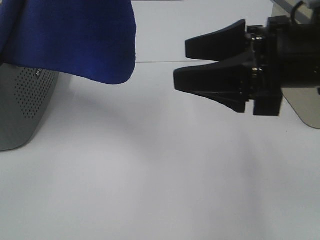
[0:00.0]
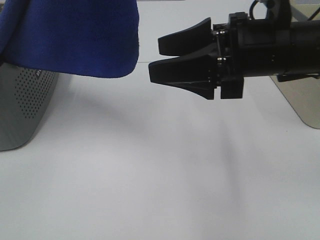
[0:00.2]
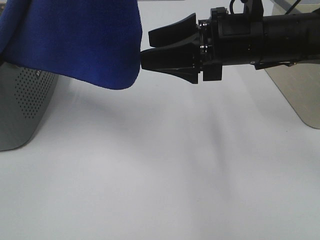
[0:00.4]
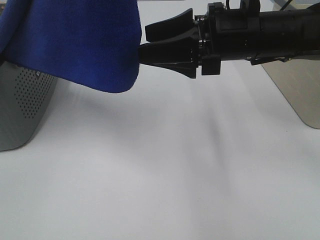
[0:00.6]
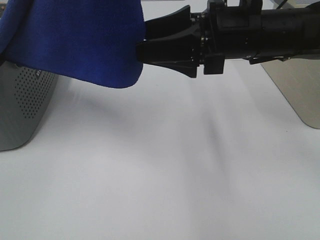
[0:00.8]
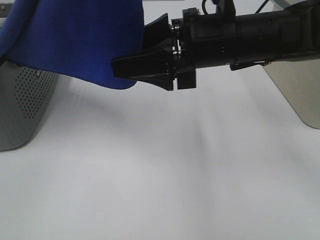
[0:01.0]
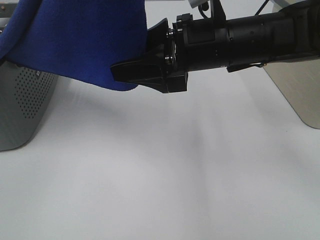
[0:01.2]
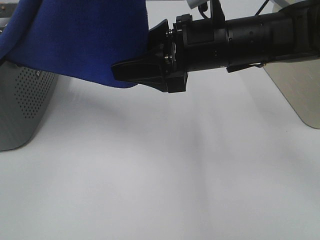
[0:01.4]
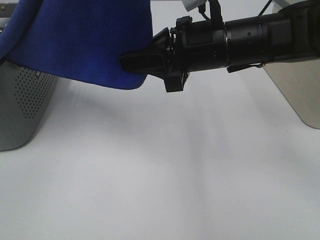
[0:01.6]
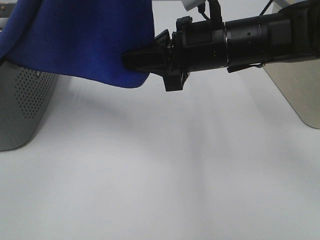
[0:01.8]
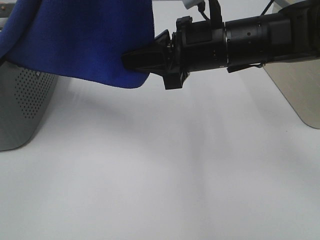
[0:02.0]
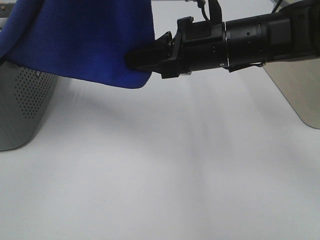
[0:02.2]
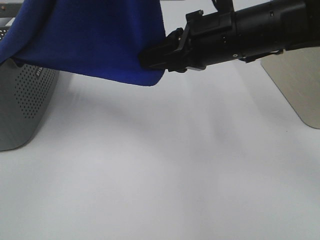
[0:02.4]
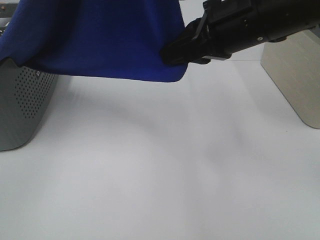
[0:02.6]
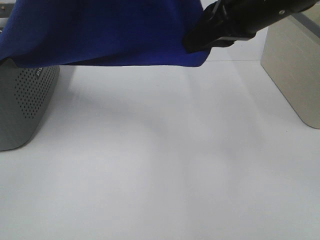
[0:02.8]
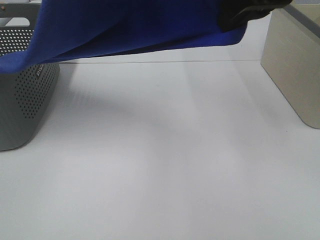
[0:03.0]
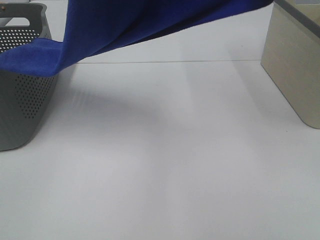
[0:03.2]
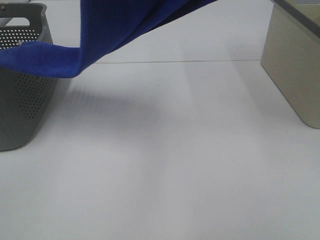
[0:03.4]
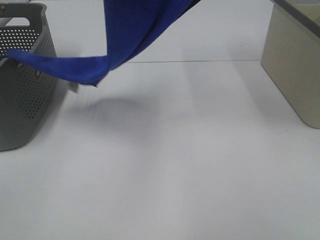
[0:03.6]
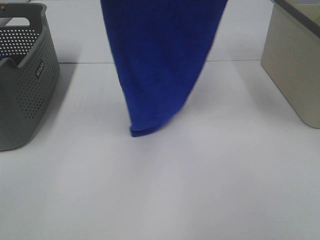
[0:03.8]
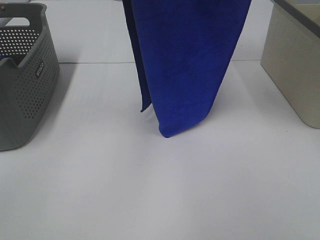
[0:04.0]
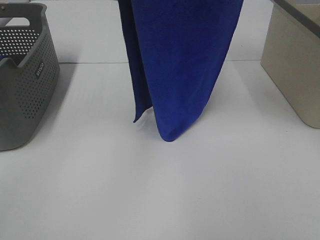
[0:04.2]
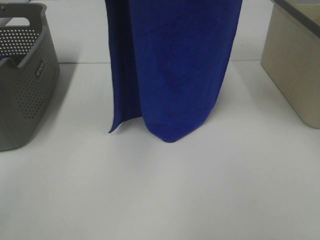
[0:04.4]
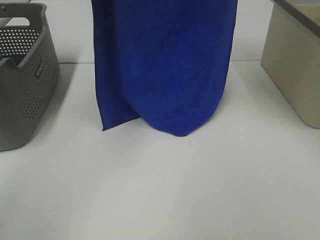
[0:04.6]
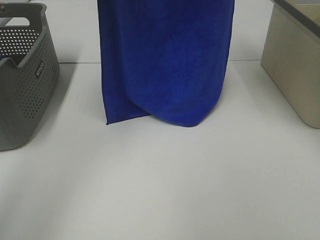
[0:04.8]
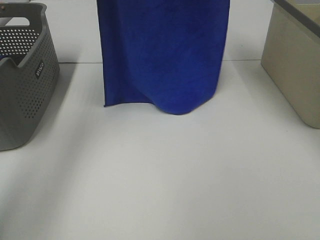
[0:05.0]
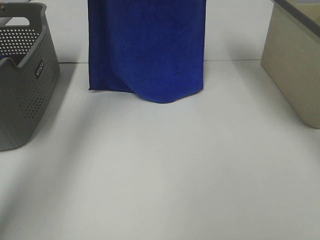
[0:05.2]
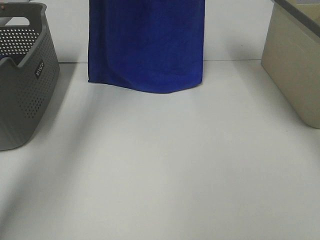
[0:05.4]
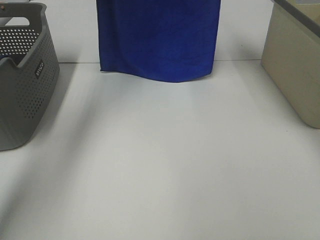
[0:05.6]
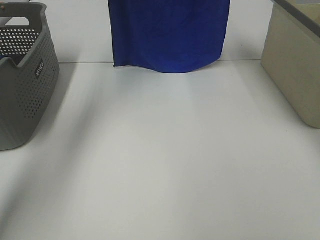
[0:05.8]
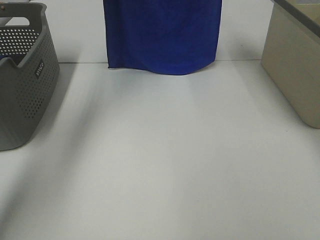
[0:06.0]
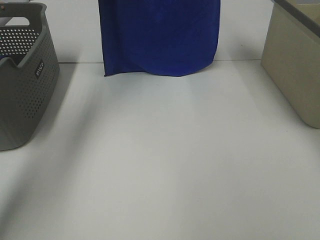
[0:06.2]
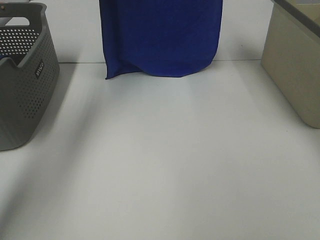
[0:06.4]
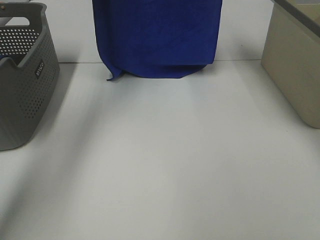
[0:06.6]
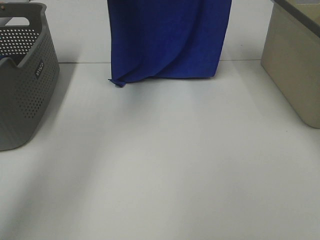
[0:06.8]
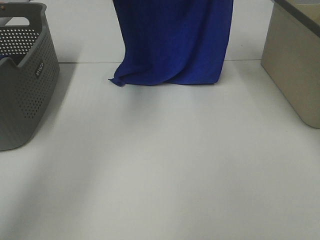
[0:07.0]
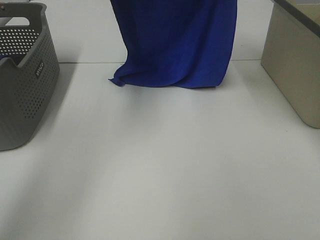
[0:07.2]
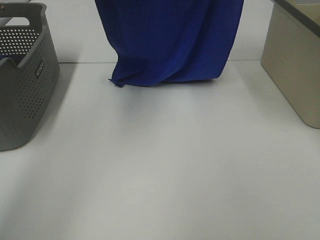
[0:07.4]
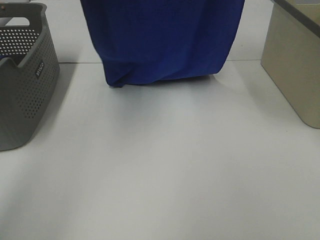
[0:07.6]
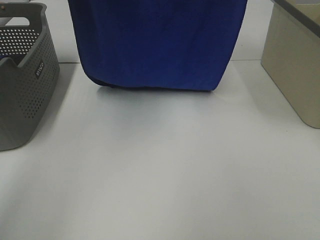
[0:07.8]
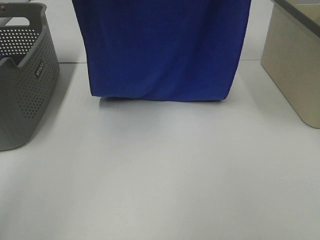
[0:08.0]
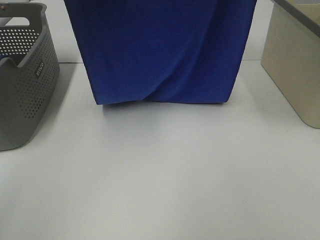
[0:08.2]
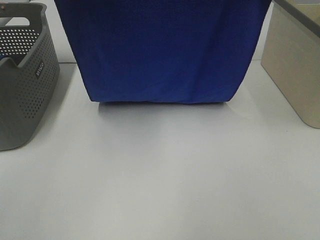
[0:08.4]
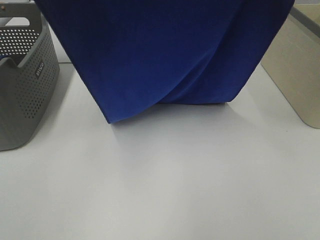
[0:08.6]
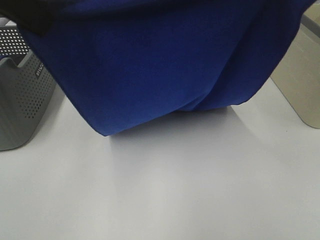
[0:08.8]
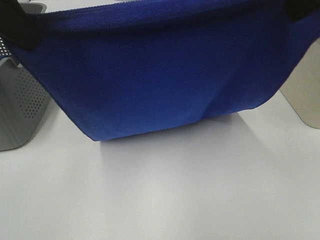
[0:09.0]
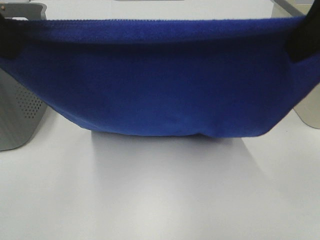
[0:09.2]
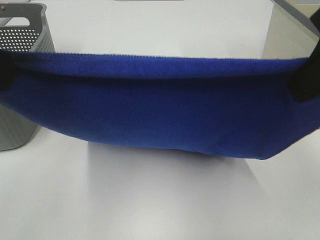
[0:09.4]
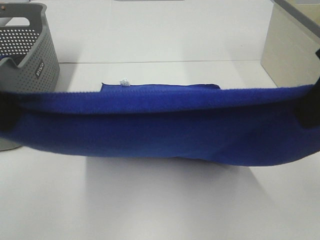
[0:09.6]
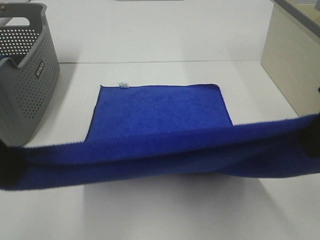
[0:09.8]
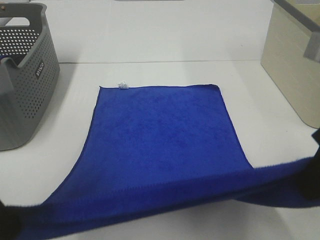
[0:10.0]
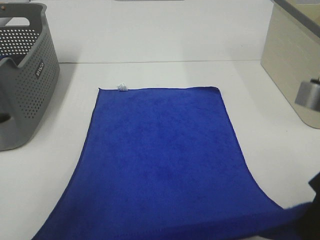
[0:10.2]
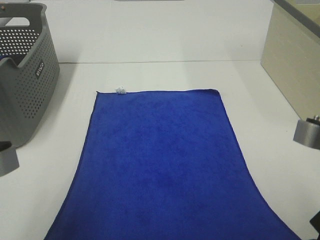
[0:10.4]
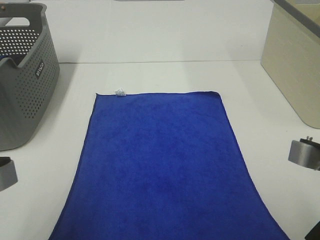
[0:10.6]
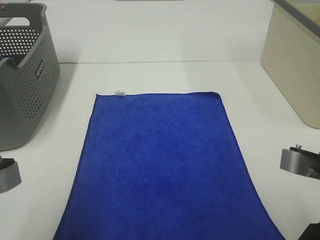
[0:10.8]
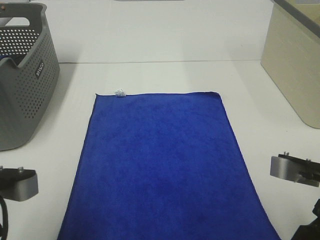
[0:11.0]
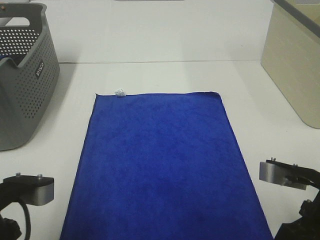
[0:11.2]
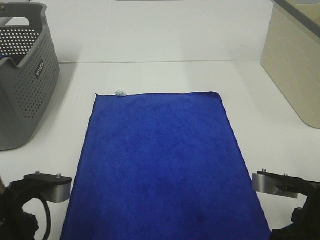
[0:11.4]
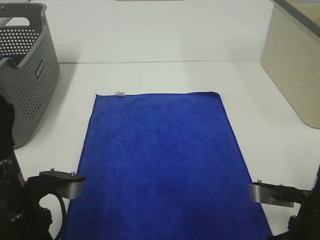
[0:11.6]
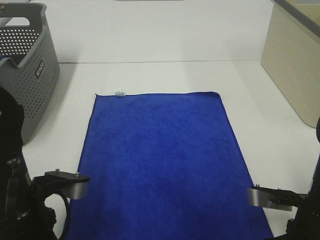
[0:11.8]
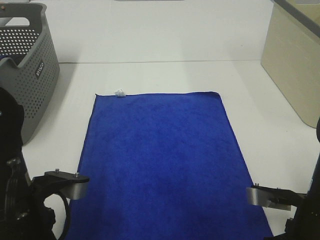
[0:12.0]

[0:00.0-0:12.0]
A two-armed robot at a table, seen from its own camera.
Task of the whole recording: Remove the towel and place it.
Step, 0:00.0 to 0:02.4: Right hand: grab a corner of the blue towel and straighten it.
Step, 0:02.6 to 0:08.4: Left hand: spread the blue towel flat on the table.
Step, 0:02.6 to 0:08.4: Right hand: spread the blue towel flat on the table.
0:00.0 to 0:01.6: The right gripper travels forward and to the left by about 10 cm, and closes up.
0:01.6 to 0:03.0: The right gripper travels upward and to the right by approximately 15 cm.
0:03.0 to 0:04.4: The left gripper goes about 10 cm forward. The right gripper heads upward, covering some 10 cm.
0:04.4 to 0:06.0: The grippers both shift forward by about 15 cm.
0:06.0 to 0:07.6: The grippers both shift backward by roughly 10 cm.
0:07.6 to 0:09.0: The grippers both shift backward and downward by roughly 15 cm.
0:09.0 to 0:10.4: The two grippers go about 20 cm downward and backward.
0:10.4 to 0:12.0: The left gripper moves downward and forward, about 10 cm. Meanwhile the right gripper heads downward, covering about 10 cm.

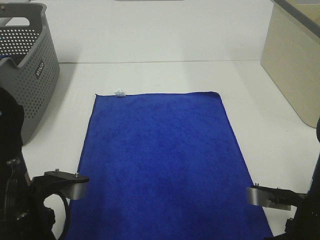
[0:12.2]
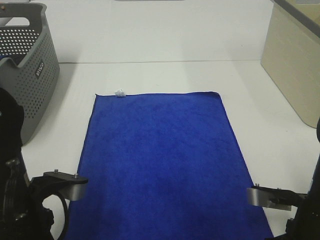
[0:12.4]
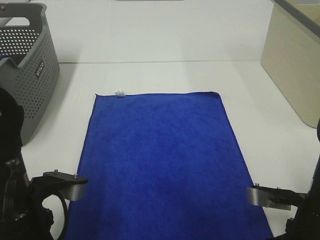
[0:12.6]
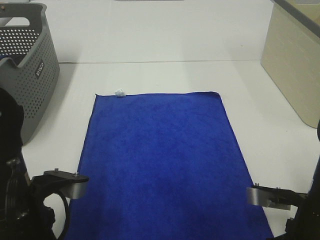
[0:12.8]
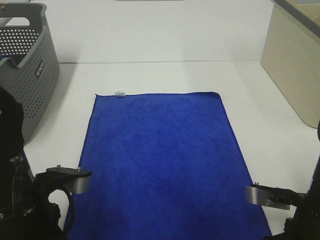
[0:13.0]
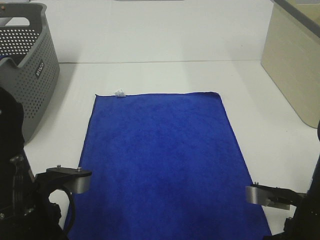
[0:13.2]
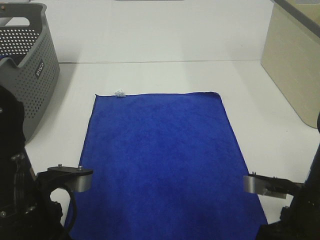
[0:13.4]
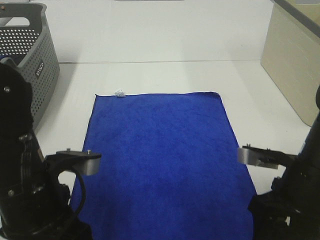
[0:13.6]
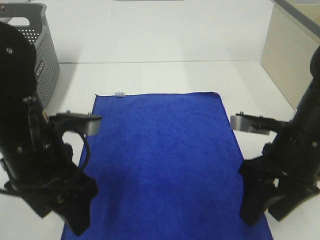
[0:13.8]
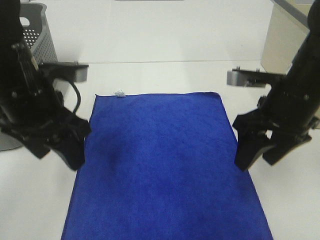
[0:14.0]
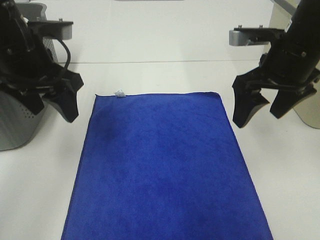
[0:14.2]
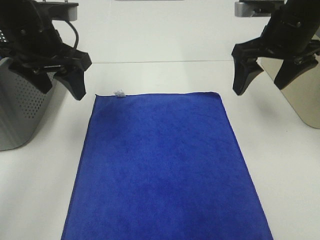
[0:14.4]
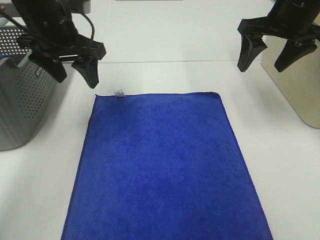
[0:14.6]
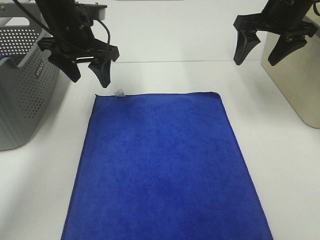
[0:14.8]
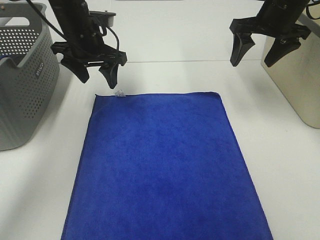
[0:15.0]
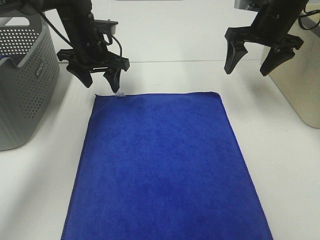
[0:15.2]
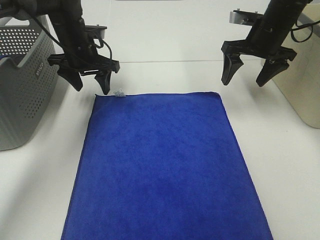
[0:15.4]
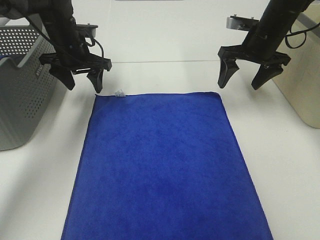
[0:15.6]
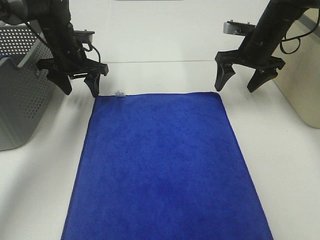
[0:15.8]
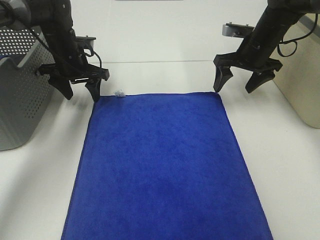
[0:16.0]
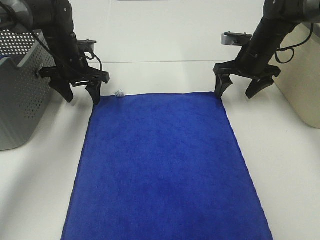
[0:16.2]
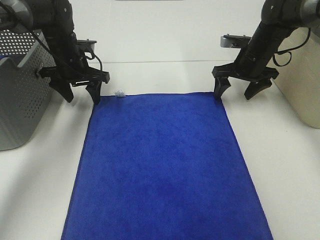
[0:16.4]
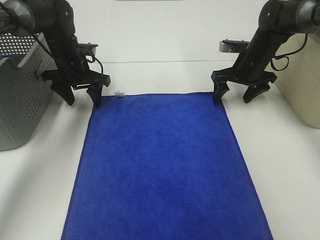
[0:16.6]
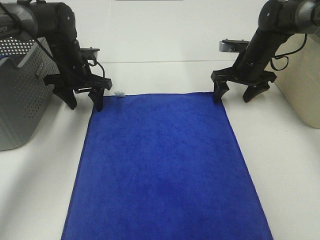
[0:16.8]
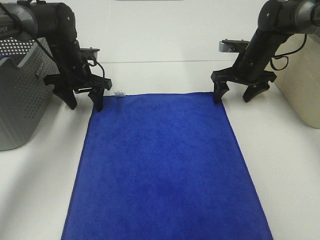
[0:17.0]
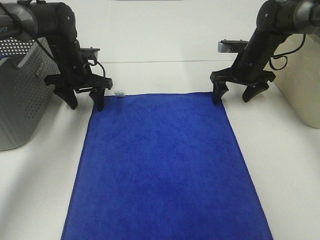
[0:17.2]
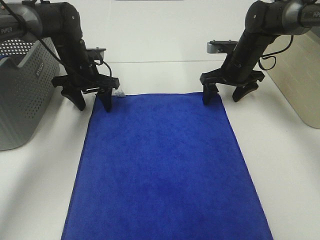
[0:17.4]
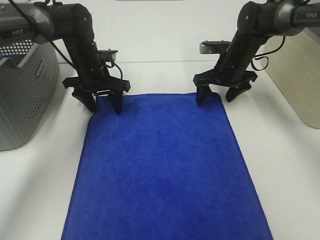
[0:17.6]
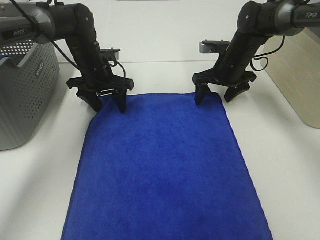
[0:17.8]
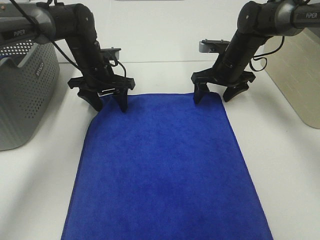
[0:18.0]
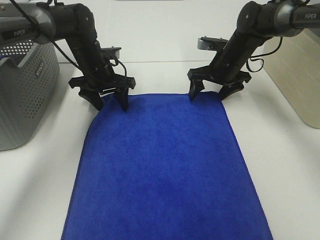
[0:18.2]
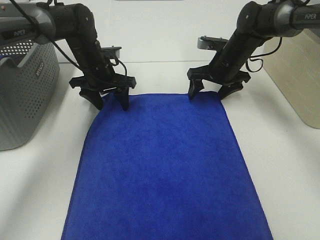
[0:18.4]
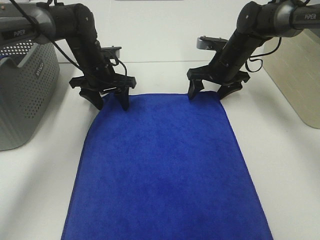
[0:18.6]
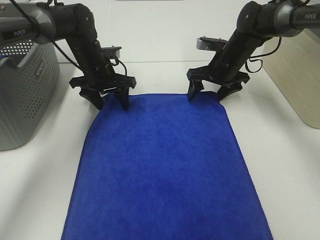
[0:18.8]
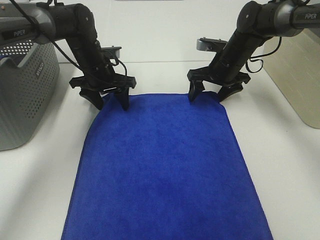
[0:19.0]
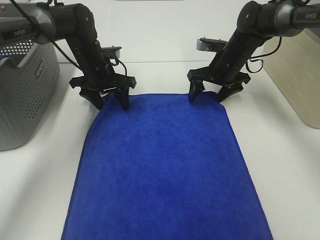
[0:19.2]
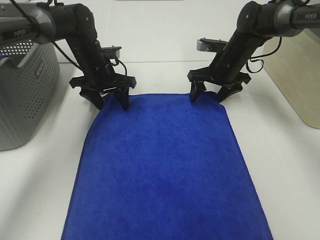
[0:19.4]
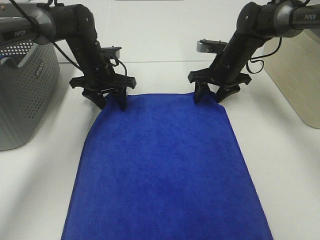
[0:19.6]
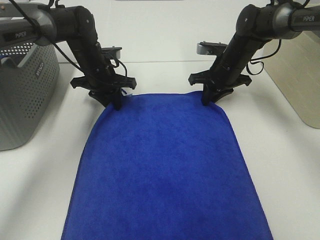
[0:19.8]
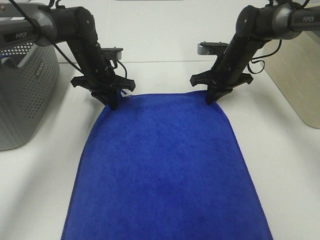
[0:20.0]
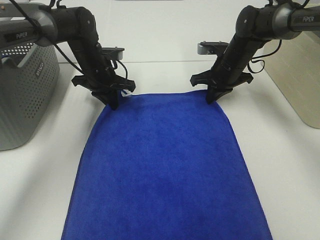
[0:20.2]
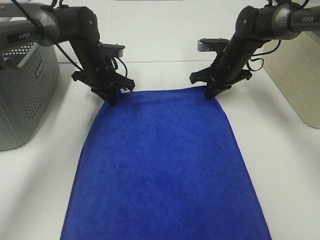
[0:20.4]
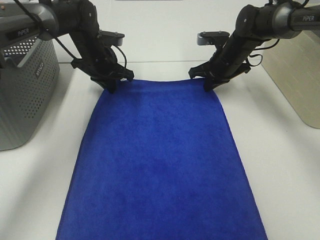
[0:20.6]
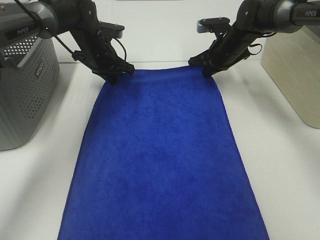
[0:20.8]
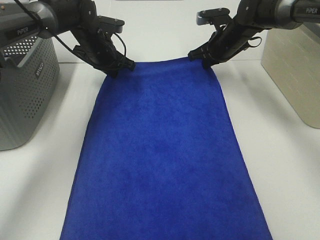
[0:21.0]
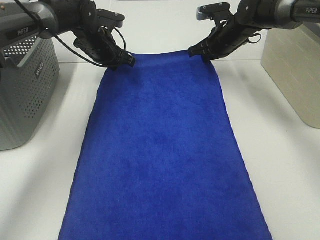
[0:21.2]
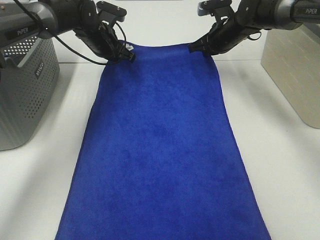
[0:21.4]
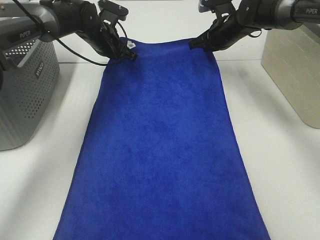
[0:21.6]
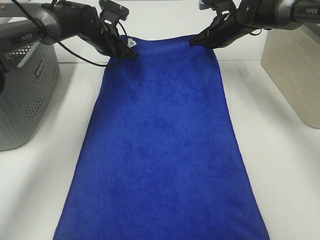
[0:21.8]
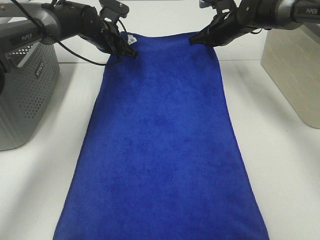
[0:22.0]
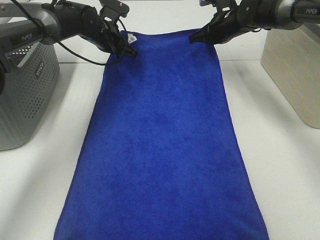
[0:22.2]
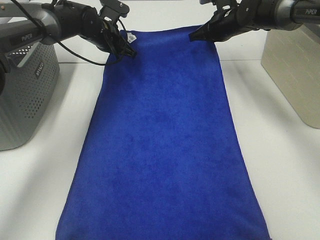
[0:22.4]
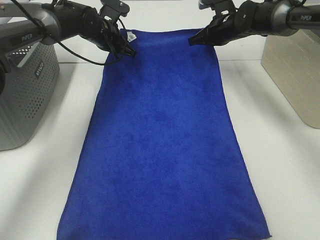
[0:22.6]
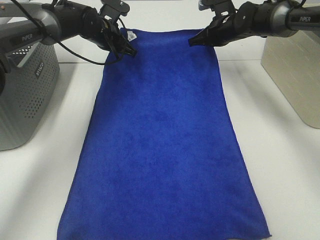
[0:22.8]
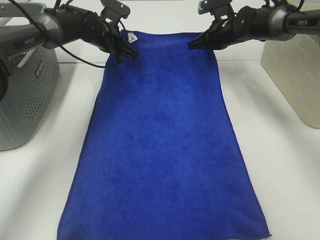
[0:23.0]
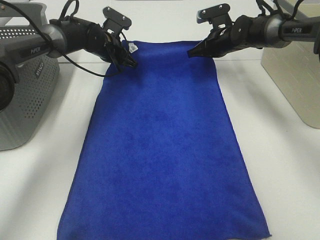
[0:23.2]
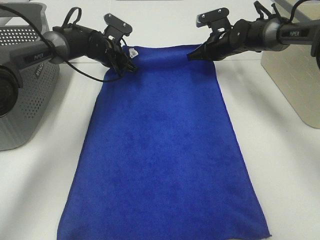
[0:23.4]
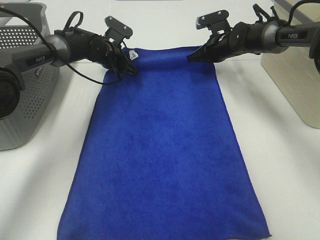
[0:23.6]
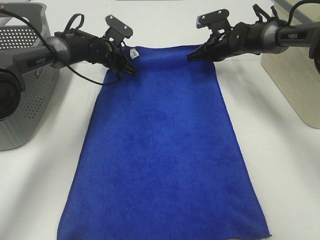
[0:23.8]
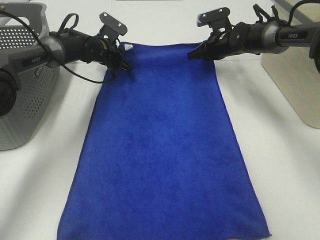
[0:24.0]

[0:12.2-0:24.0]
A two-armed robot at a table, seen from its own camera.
Task of the whole recording: Remove the towel and place it.
Step, 0:12.2 to 0:18.0: Left hand:adjust the blue towel.
Step, 0:12.2 to 0:18.0: Right hand:adjust the blue towel.
0:12.2 to 0:13.6: The right gripper opens up. The left gripper opens.
0:13.6 to 0:15.2: Both grippers move forward, roughly 30 cm.
0:15.2 to 0:16.6: The left gripper heads downward, covering some 5 cm, while the right gripper heads downward, covering about 10 cm.
0:16.6 to 0:18.2: The right gripper goes about 5 cm to the left. Meanwhile the left gripper heads to the right, covering roughly 5 cm.
0:18.2 to 0:19.6: Both grippers stay put.
0:19.6 to 0:21.0: The left gripper shifts by roughly 5 cm, and closes its fingers; the right gripper ends up approximately 5 cm from where it was, and closes its fingers.
0:22.6 to 0:24.0: The left gripper heads downward, covering about 5 cm, and opens up.
